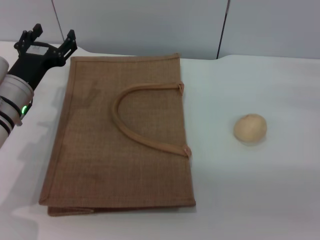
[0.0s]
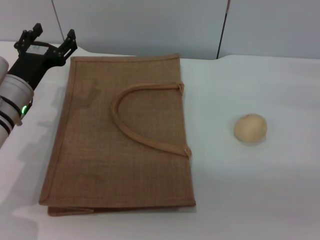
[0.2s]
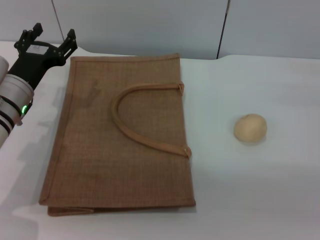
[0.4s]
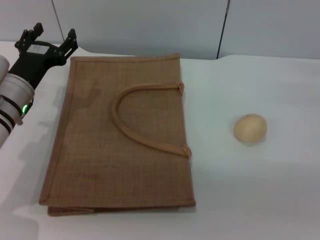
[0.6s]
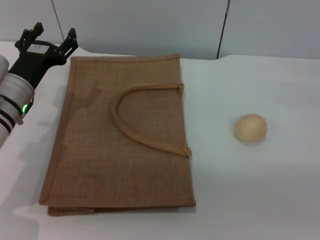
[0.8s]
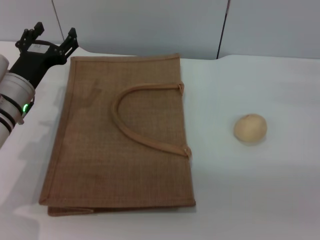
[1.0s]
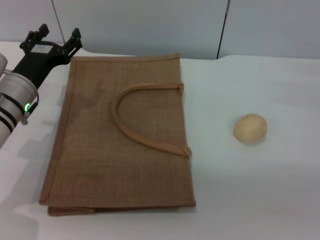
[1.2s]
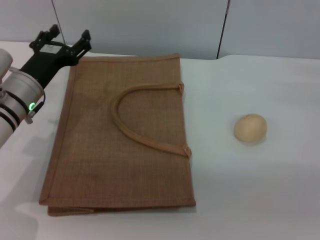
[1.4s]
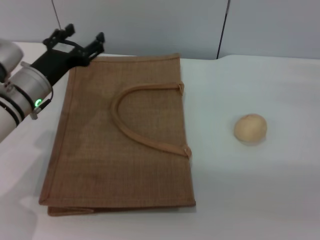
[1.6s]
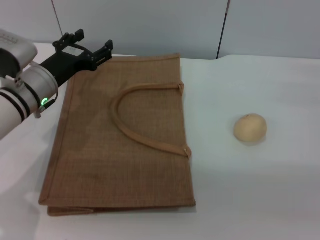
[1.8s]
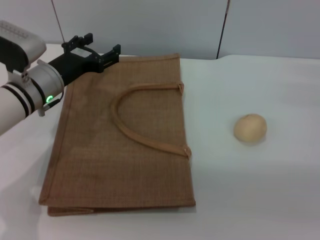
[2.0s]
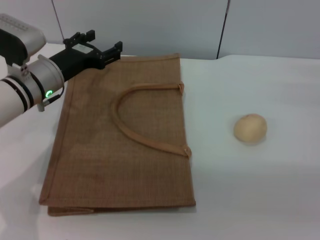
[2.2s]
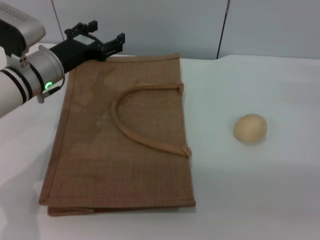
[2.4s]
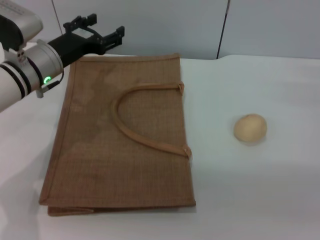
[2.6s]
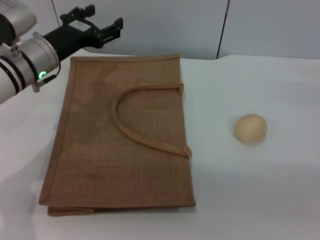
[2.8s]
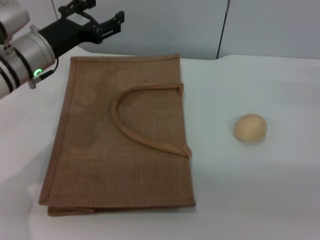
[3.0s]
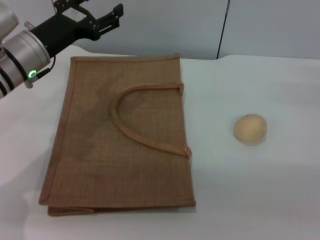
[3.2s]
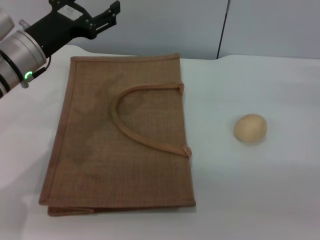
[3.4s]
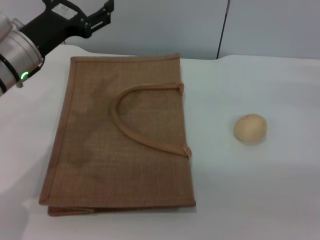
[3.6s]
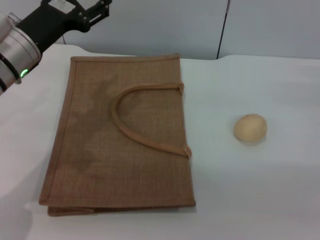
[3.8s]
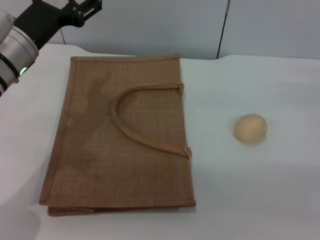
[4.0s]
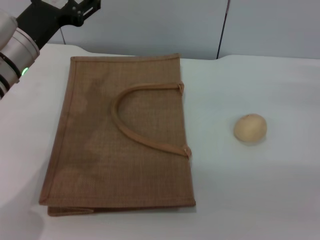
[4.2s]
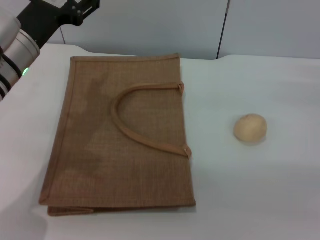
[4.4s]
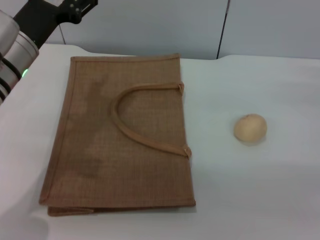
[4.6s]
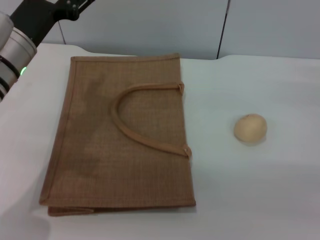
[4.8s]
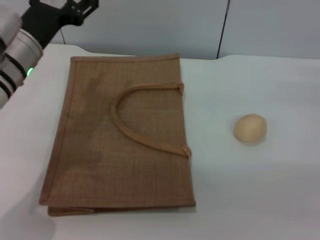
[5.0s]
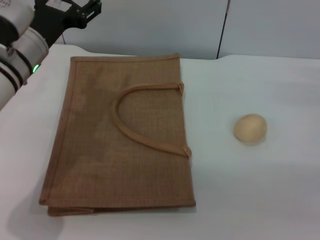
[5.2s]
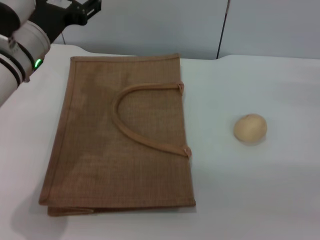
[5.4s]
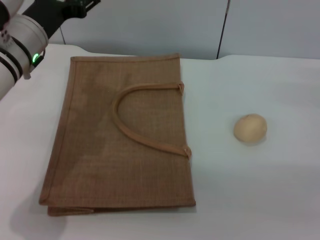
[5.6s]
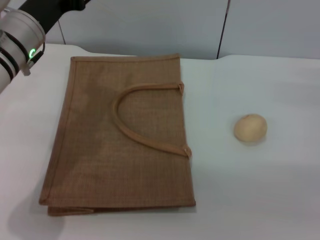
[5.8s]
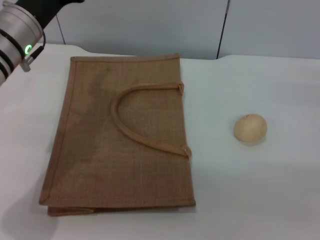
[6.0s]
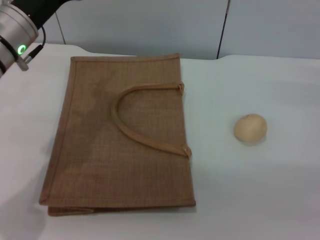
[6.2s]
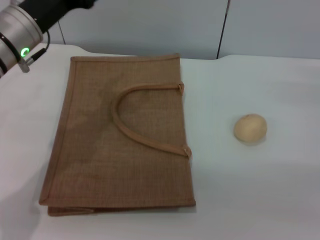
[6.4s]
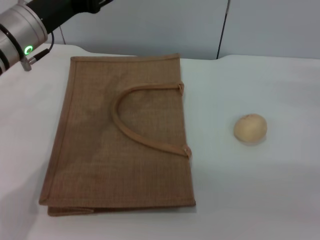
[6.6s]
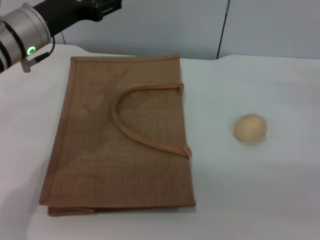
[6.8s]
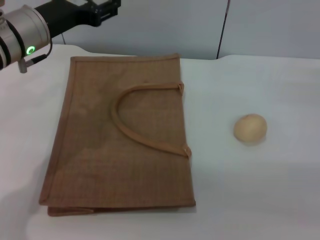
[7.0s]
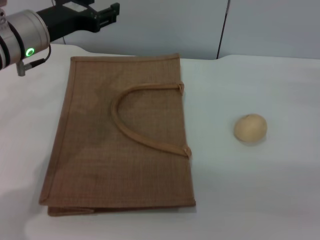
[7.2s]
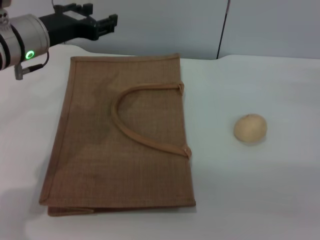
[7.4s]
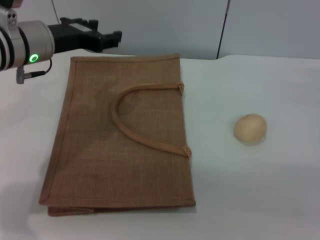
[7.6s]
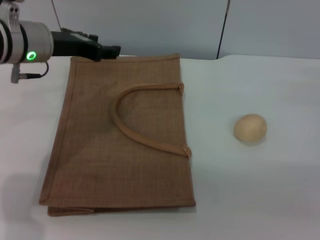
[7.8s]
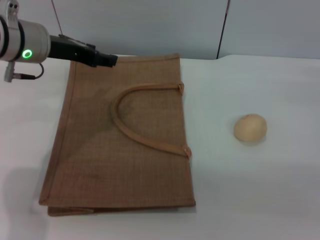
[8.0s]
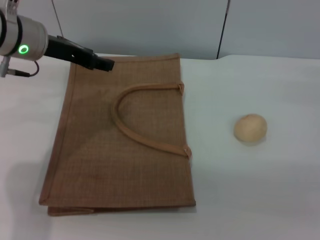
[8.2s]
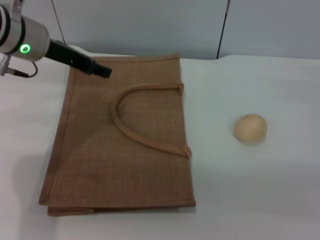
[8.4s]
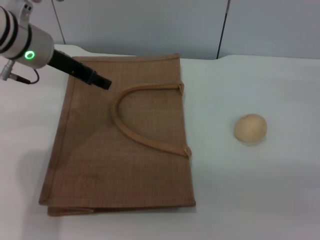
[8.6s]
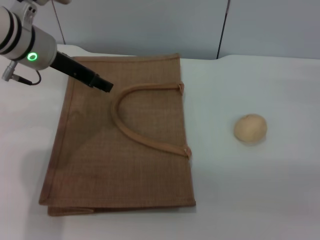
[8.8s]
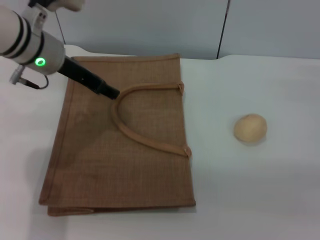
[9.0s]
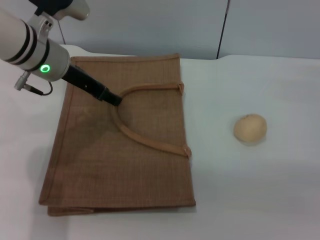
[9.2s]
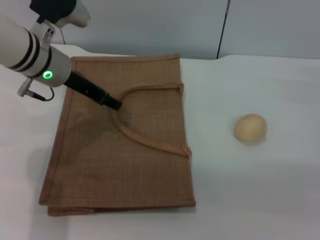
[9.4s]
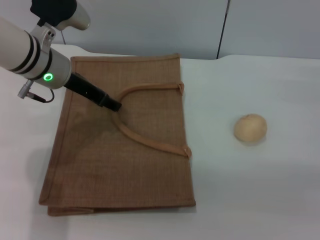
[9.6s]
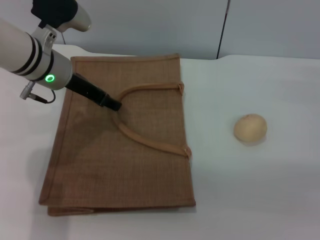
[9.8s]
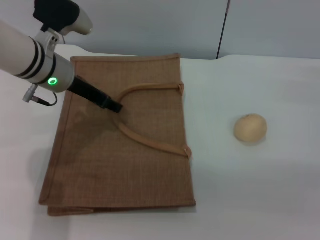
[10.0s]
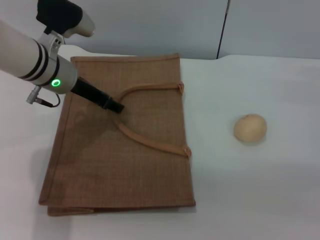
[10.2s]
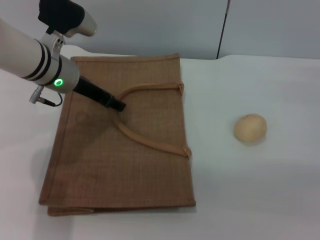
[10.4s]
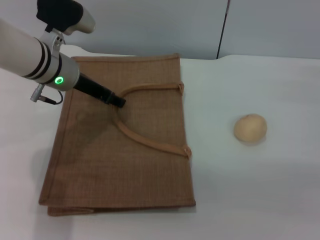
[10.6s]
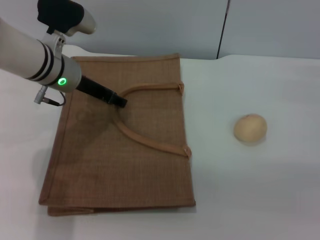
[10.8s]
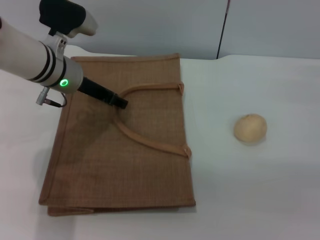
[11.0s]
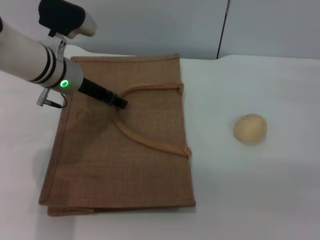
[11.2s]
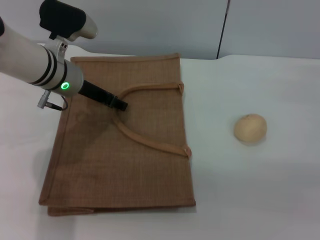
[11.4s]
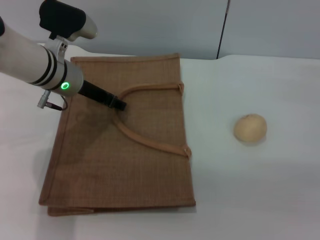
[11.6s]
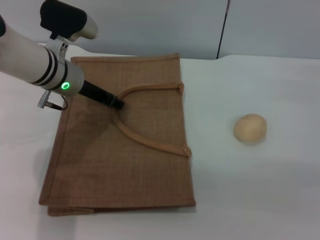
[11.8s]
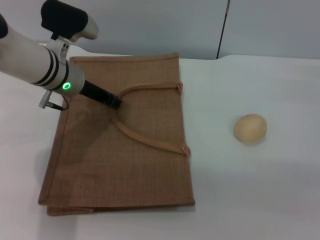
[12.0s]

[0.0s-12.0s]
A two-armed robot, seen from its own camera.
Task of the whole recording: pick up the egg yolk pastry from the table and place it in the brown handbag.
0.0s to 1.6s: There are only small adjustments of the grippers.
1.6s to 3.0s: The left gripper is displaced upward by approximately 5 cm.
4.4s to 6.0s: The grippers make only small movements.
9.0s to 10.4s: The grippers stay close to where they were, moving slightly.
10.4s to 12.0s: The left gripper closes its fingers.

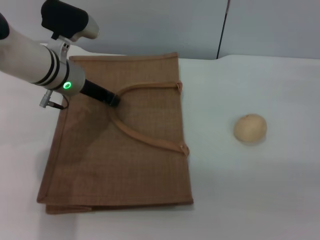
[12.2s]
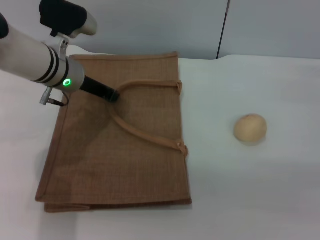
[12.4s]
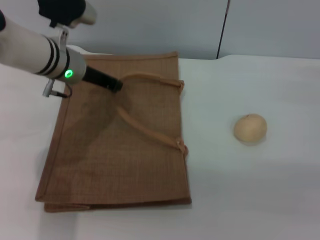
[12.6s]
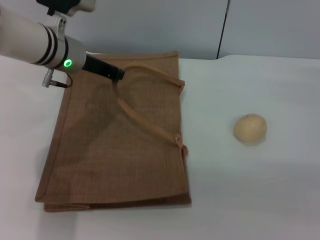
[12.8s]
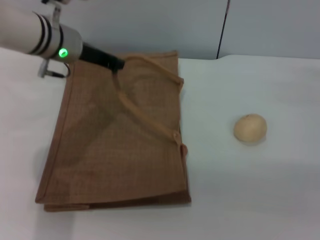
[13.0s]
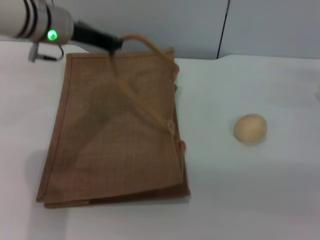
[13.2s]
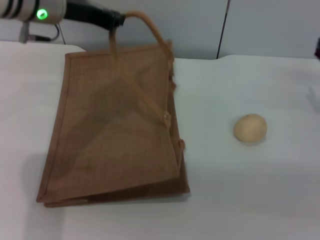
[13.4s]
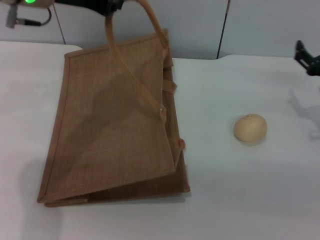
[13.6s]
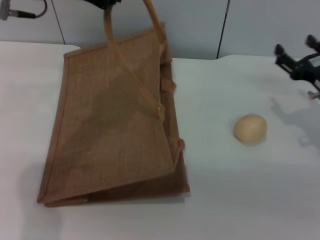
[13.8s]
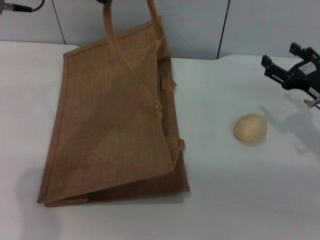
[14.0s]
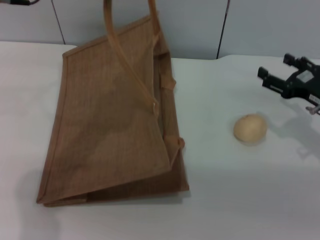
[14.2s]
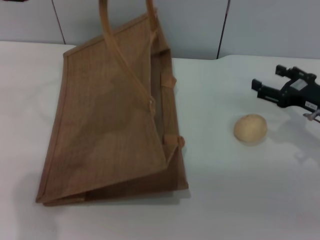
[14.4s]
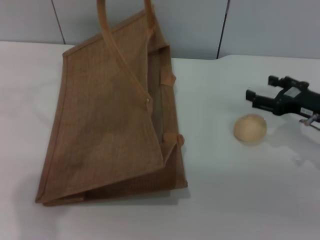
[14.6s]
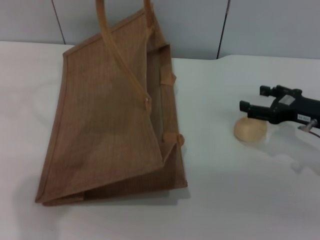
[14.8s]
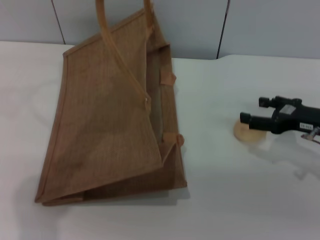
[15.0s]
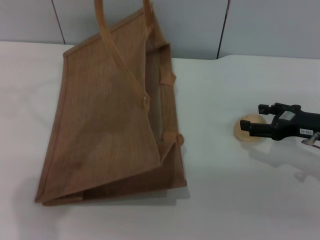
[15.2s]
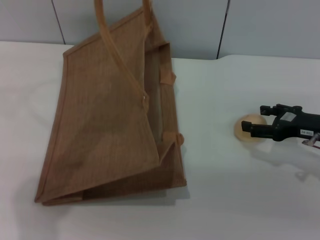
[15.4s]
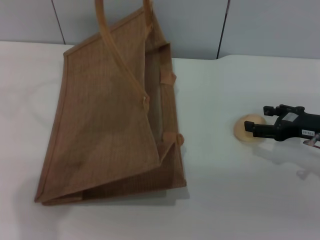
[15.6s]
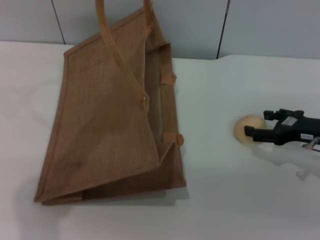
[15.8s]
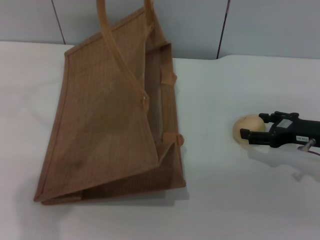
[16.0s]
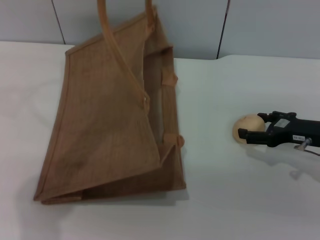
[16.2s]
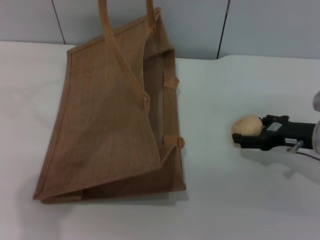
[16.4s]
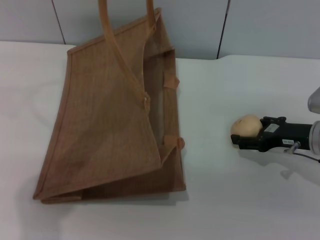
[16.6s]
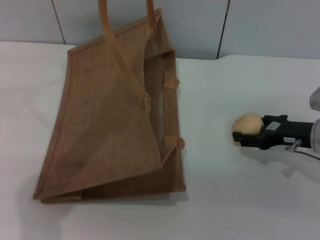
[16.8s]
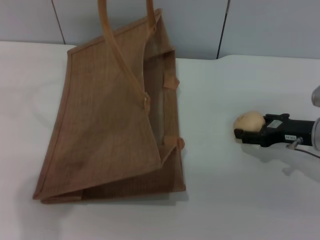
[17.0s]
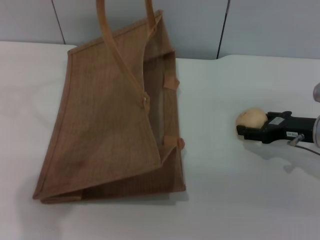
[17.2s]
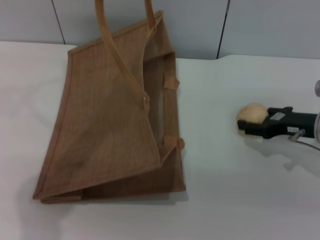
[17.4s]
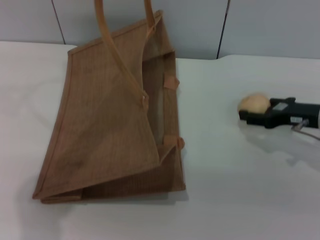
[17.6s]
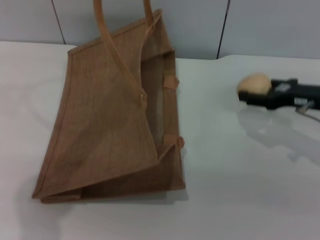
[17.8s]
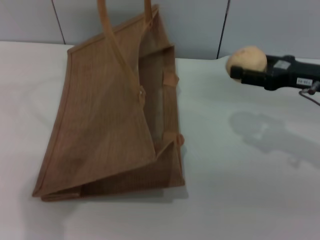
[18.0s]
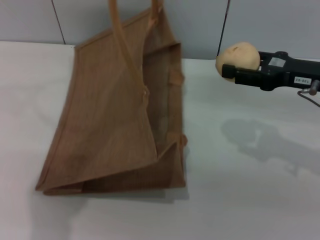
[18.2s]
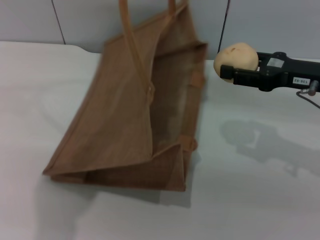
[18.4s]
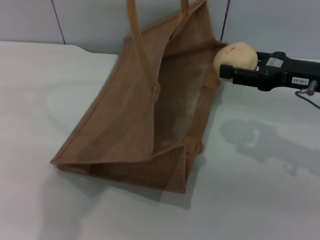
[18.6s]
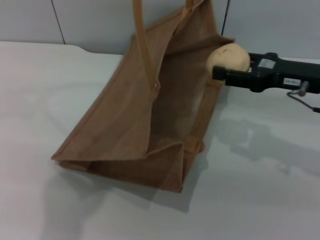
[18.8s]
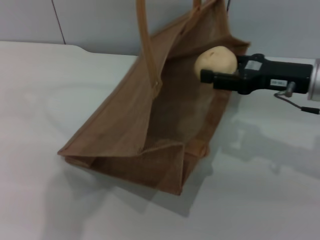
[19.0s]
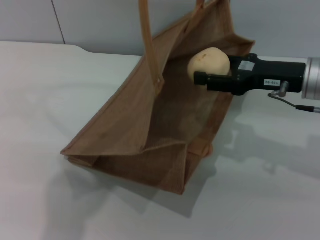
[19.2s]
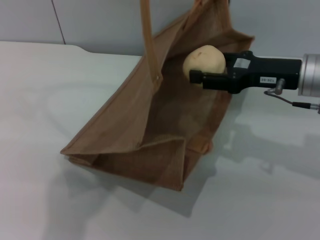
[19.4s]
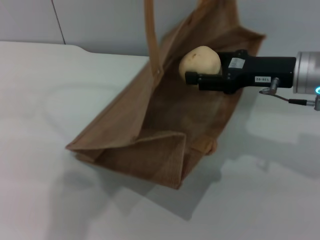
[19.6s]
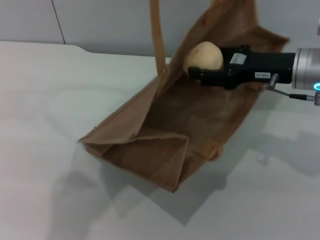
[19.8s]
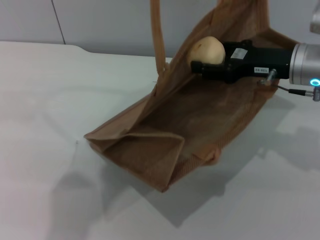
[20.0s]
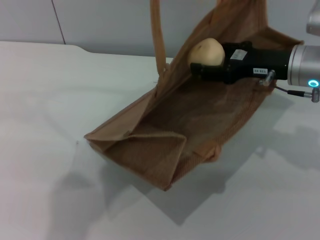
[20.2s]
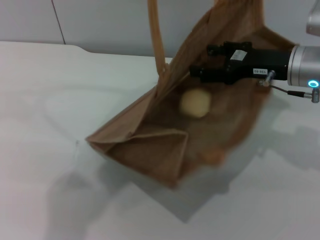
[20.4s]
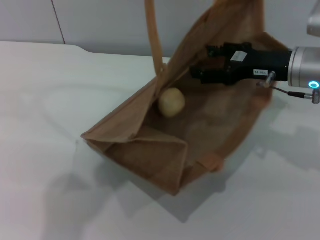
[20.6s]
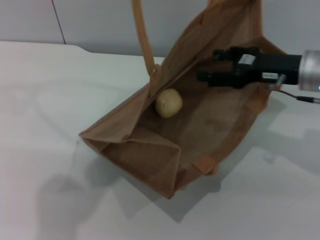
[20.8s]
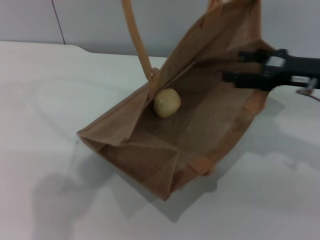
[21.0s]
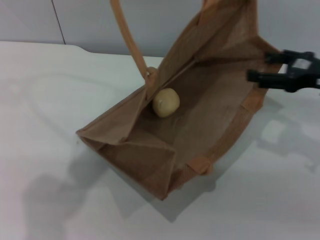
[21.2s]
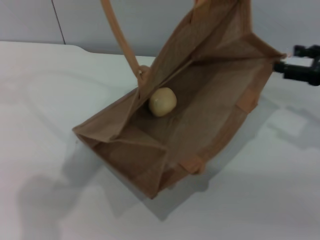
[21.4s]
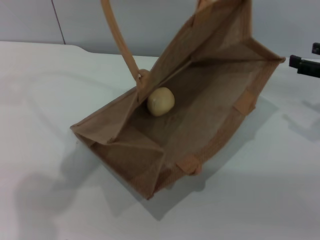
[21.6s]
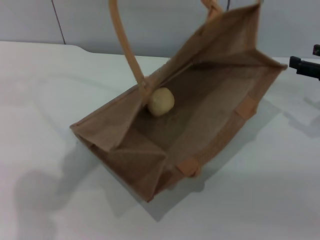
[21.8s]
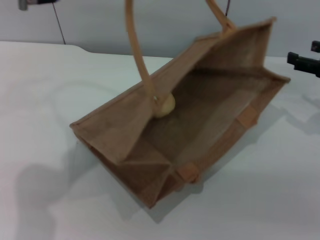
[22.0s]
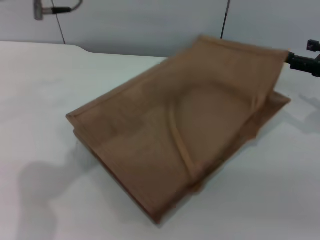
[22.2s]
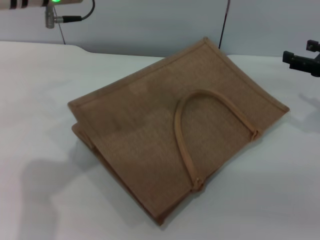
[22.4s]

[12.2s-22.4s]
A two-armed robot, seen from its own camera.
Task of the whole recording: pick up the egg yolk pastry from the table and place it in the brown handbag.
Step, 13.6s to 17.8s: Pick up the egg yolk pastry with the right gripper.
Step, 18.0s to 21.8s: Place the egg yolk pastry into the woven bag with the right gripper.
12.2s to 13.6s: The left gripper travels upward by some 15 cm.
13.6s to 15.2s: The left gripper goes some 5 cm upward.
15.2s to 16.6s: The grippers stay close to where they were, moving slightly.
16.6s to 18.0s: The right gripper travels upward by approximately 10 cm, and closes.
18.0s to 19.4s: The right gripper moves to the left, roughly 5 cm. Meanwhile the left gripper shifts about 5 cm to the right.
19.4s to 21.0s: The right gripper opens.
21.0s to 22.4s: The right gripper heads to the right, covering some 5 cm, while the left gripper is displaced downward by approximately 10 cm, and opens its fingers.
